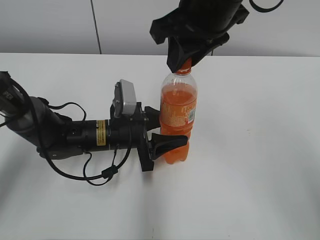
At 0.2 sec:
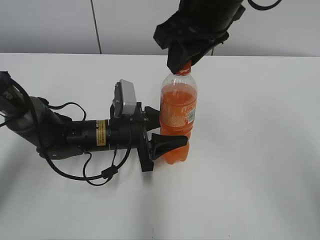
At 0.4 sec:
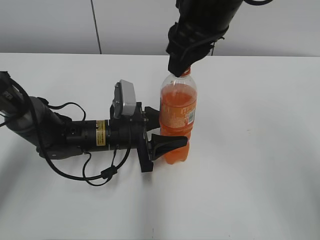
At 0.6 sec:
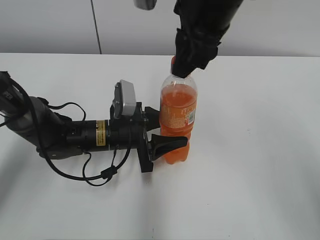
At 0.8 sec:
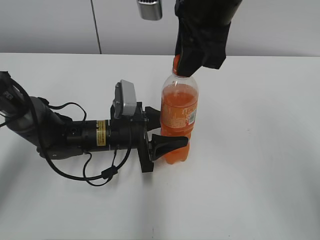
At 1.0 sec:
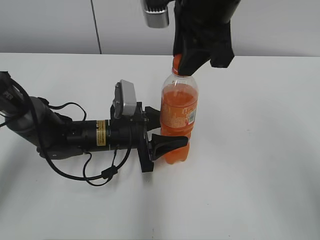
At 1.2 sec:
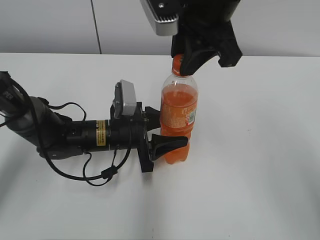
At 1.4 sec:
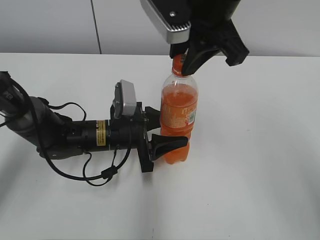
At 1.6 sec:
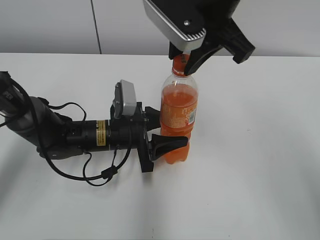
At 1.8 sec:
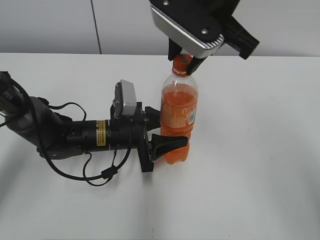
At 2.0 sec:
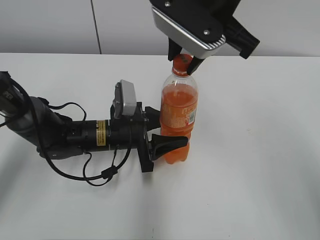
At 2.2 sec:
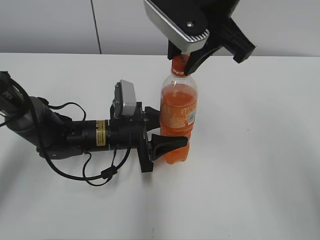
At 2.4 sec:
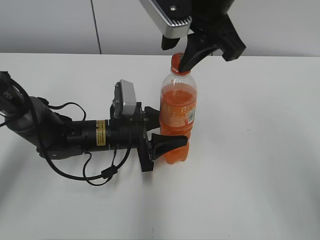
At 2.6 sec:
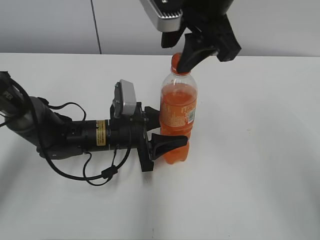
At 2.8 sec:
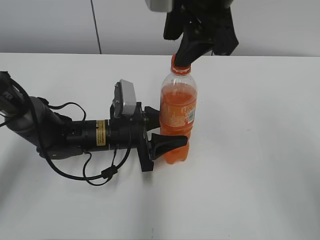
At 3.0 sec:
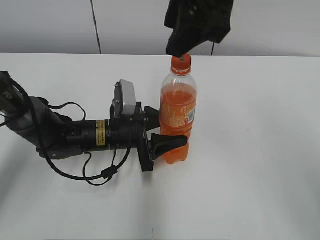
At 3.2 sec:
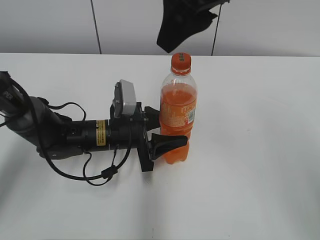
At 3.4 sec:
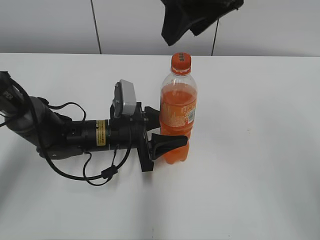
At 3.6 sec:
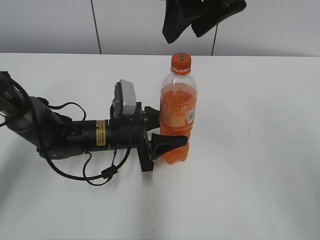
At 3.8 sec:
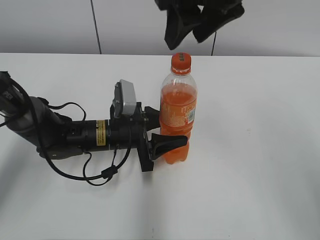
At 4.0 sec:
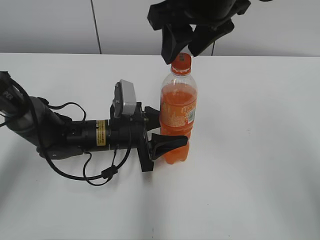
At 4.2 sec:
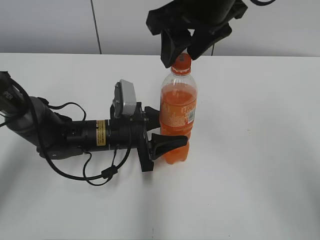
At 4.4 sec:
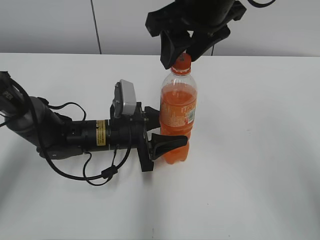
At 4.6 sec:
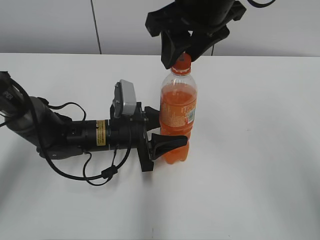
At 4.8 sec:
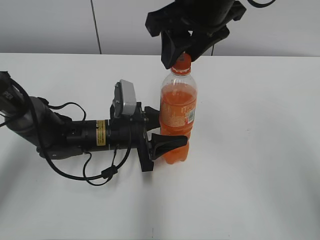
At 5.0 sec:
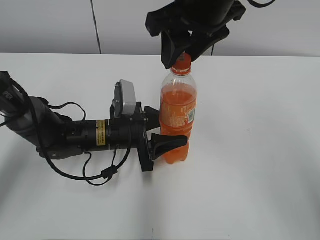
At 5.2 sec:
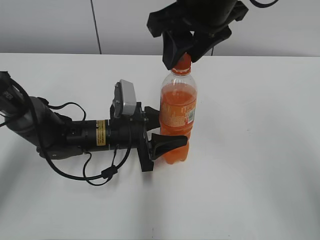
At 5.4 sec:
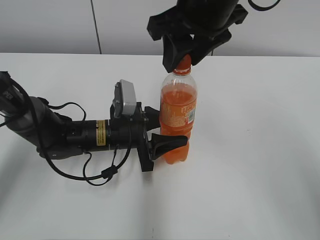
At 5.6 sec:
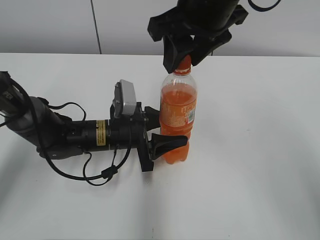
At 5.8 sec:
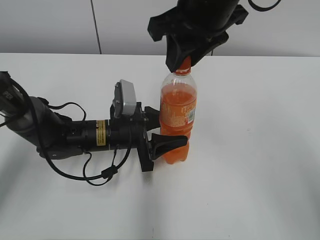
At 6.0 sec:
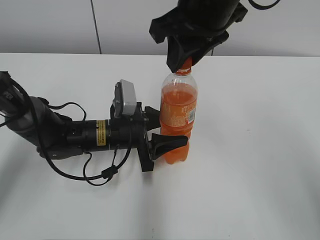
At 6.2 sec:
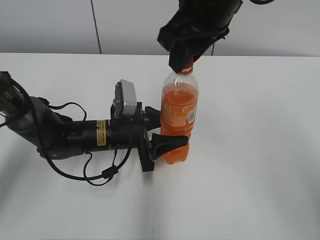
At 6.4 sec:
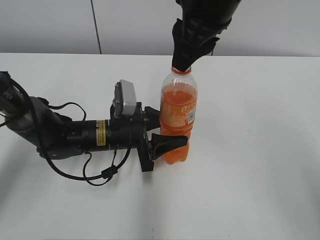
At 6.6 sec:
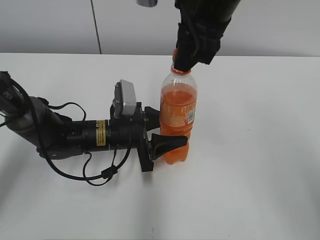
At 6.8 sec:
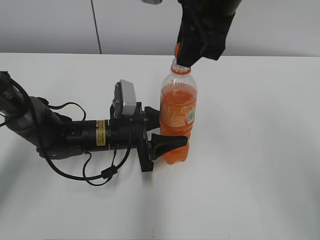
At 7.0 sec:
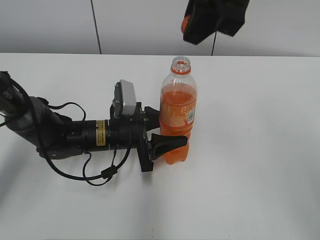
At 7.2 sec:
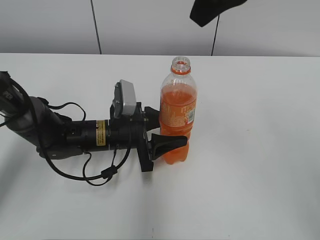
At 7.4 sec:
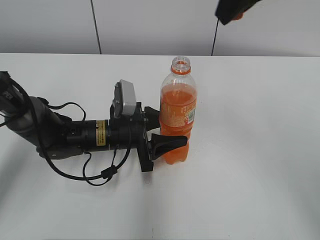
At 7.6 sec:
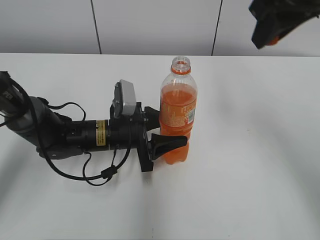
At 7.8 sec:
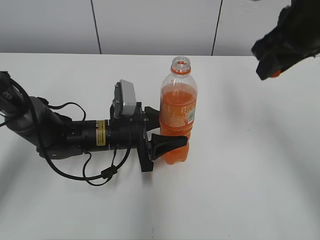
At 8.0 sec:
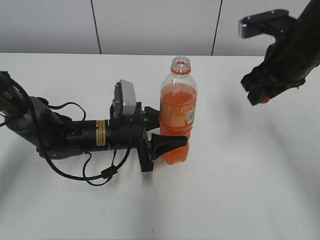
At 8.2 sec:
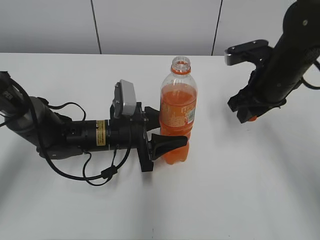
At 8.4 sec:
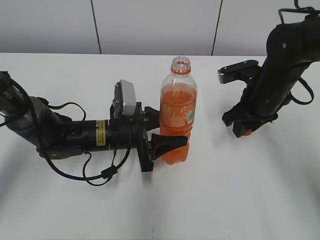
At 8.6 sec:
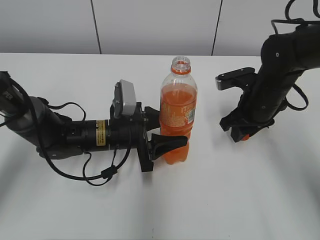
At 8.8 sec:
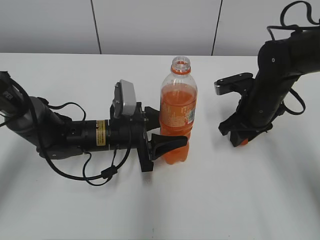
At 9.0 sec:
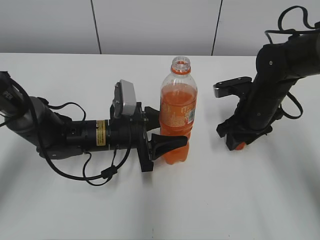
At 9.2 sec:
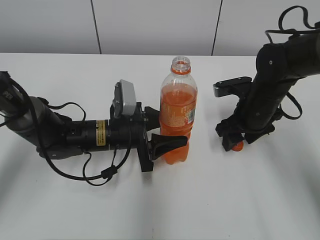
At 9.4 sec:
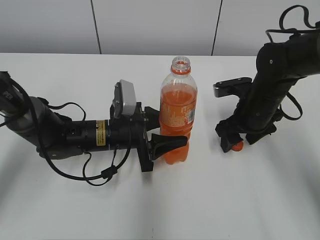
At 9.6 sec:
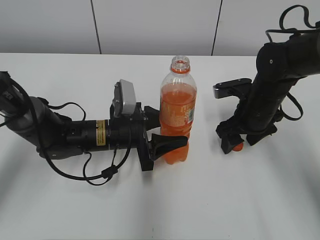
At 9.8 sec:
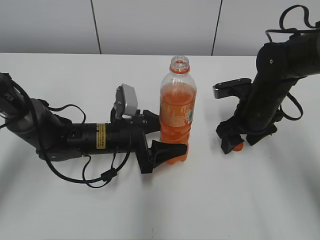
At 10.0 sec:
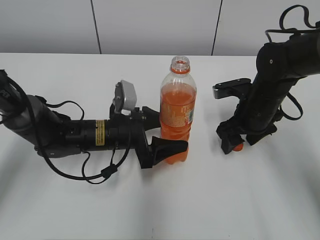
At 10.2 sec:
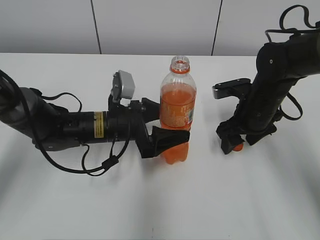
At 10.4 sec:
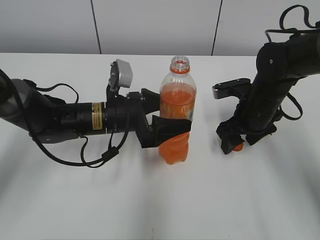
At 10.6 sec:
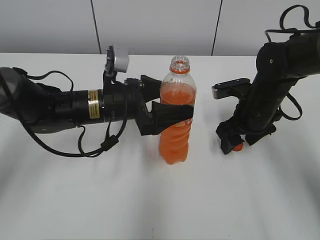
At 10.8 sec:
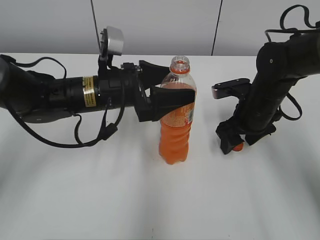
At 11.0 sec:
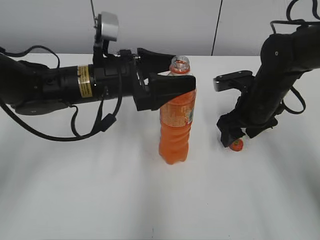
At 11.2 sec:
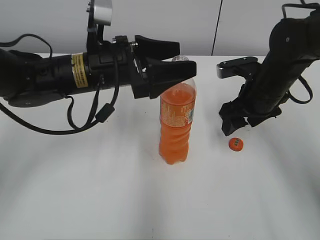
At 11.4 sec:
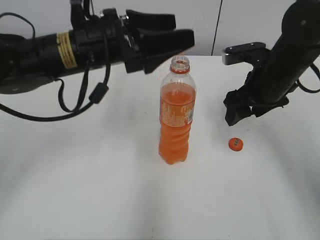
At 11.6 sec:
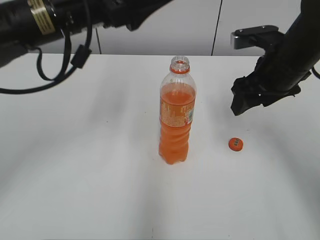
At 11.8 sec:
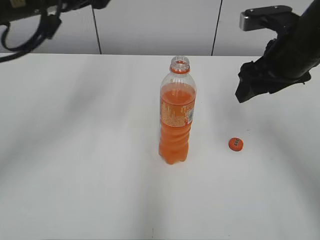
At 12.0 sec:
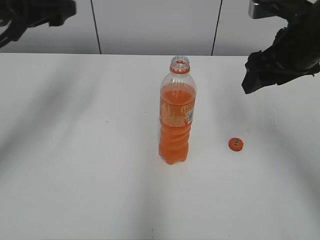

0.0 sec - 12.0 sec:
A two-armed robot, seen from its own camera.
Step, 7.0 sec - 9.0 sec: Place the bottle cap on the right.
Step, 9.4 sec - 9.8 sec: Place the Mirinda with the left hand.
1.6 sec - 3.0 sec: The right gripper opens up.
4.4 sec - 6.0 sec: The right gripper closes.
6.0 sec - 7.6 sec: The right gripper shifts some 10 cm to the right.
7.6 sec - 9.0 sec: The right gripper moves downward, roughly 25 cm.
9.0 sec - 10.4 sec: The left gripper opens; the right gripper opens up.
10.4 sec - 12.0 sec: The left gripper goes roughly 25 cm upward and to the left. The right gripper moves upward, approximately 15 cm.

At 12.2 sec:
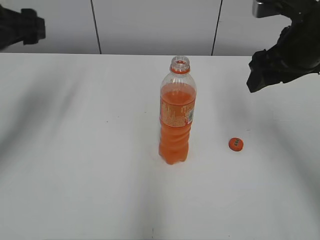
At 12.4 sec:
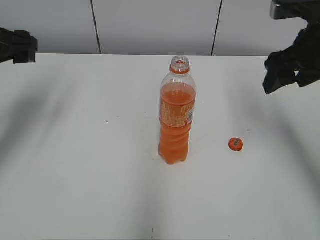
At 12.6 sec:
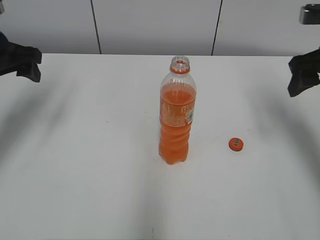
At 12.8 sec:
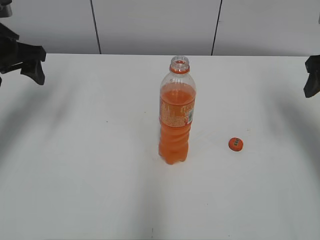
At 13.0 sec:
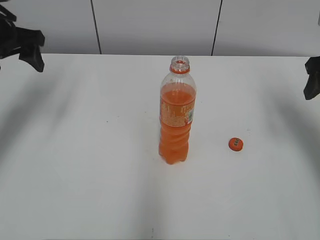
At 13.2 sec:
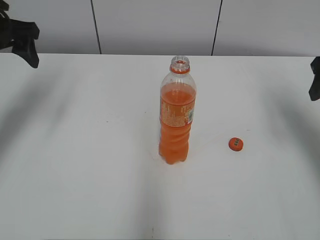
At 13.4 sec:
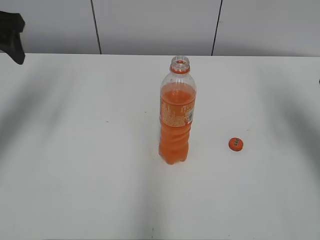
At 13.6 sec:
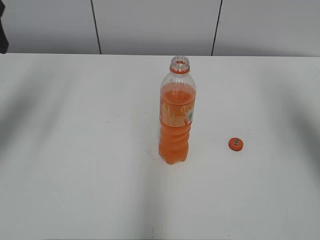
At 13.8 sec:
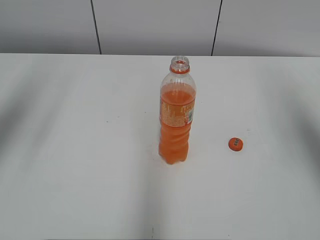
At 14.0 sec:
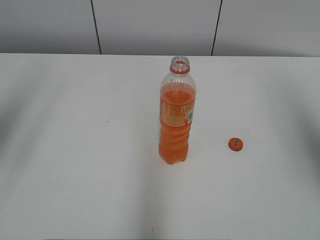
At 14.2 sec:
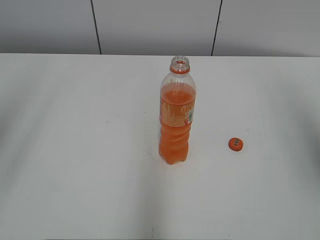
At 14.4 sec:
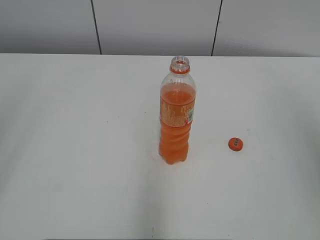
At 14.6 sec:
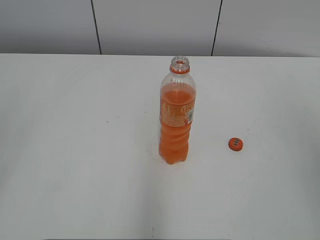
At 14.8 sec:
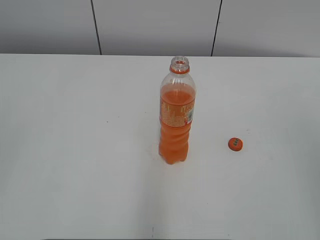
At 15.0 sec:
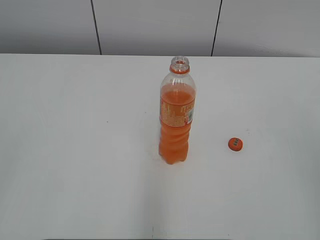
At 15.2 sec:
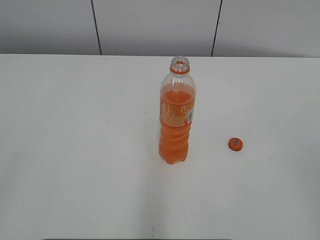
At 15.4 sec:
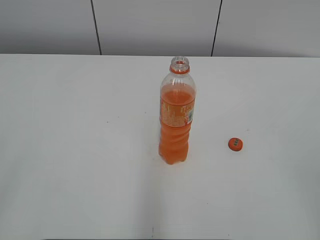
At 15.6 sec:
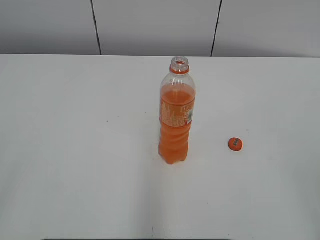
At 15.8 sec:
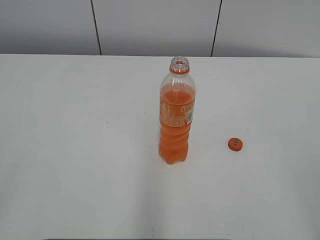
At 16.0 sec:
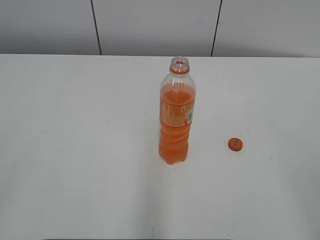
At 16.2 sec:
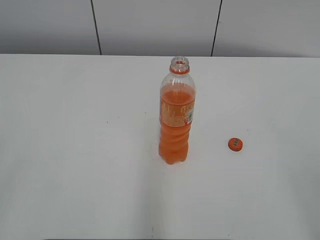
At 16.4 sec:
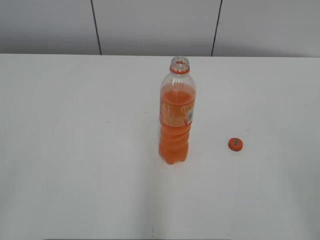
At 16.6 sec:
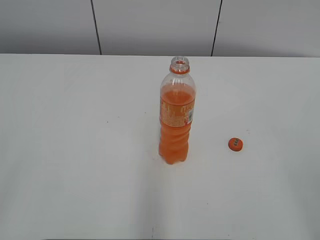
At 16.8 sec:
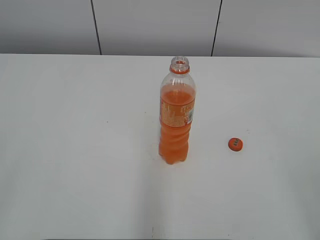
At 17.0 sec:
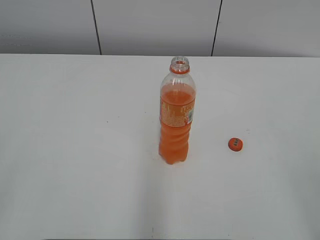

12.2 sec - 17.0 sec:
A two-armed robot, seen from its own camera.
12.2 sec - 13.8 sec: The right gripper moves to the right, upward and backward, about 15 cm. Meanwhile the left gripper is displaced upward and backward by some 10 cm.
13.8 sec - 15.4 sec: Both grippers move backward, about 25 cm.
